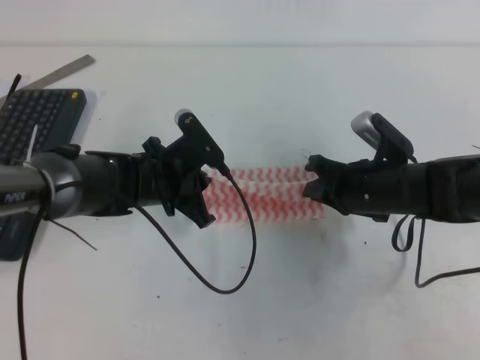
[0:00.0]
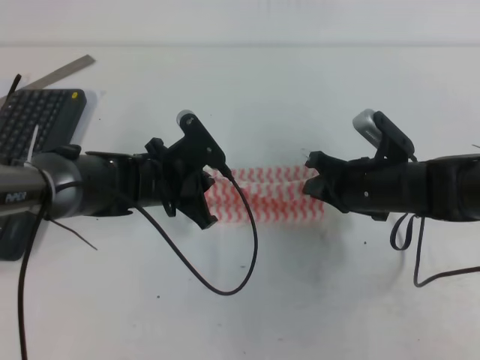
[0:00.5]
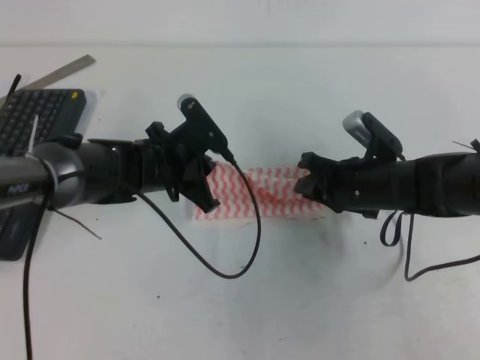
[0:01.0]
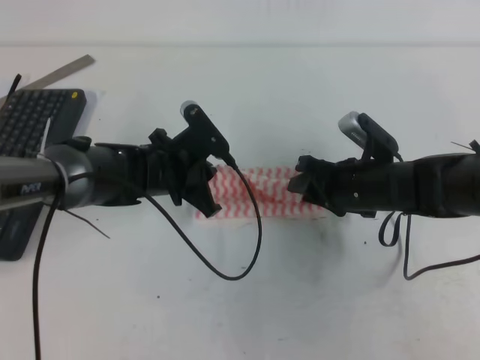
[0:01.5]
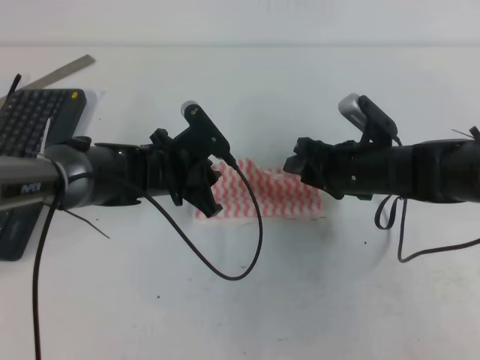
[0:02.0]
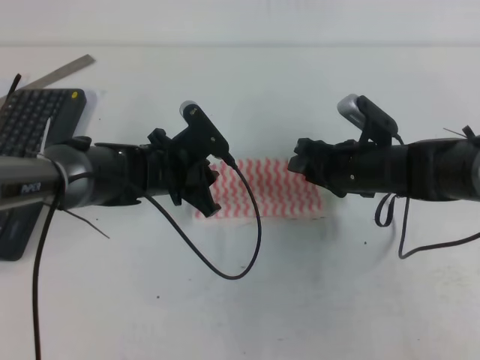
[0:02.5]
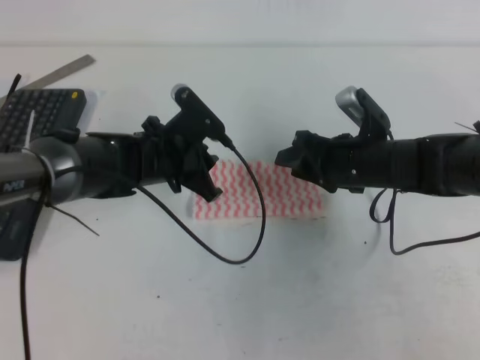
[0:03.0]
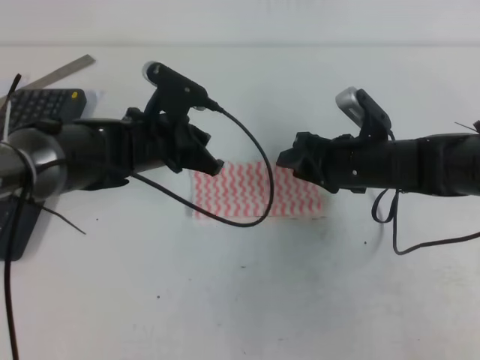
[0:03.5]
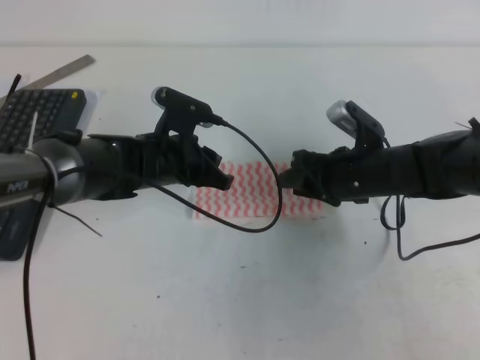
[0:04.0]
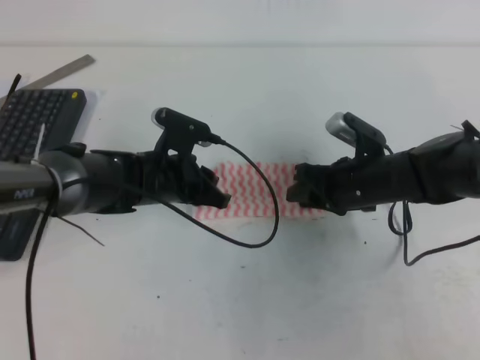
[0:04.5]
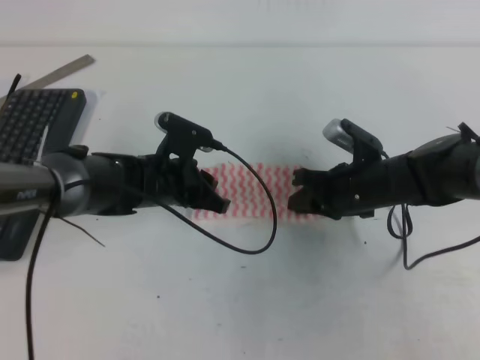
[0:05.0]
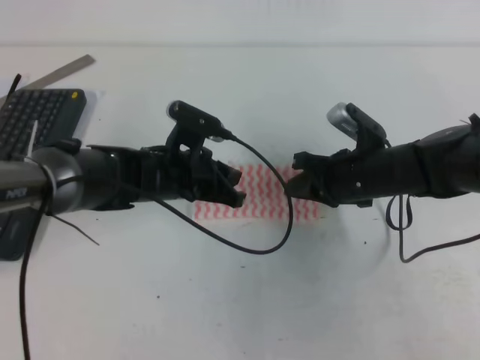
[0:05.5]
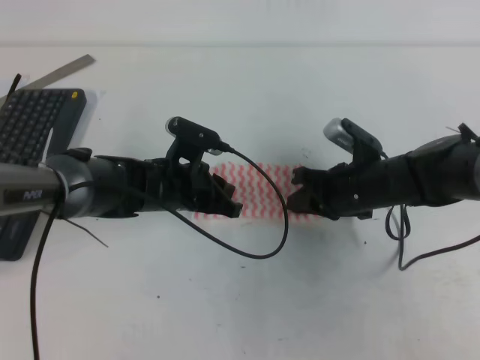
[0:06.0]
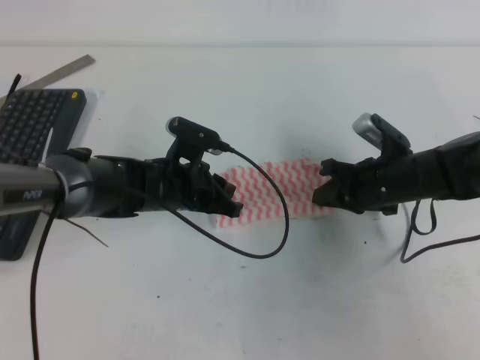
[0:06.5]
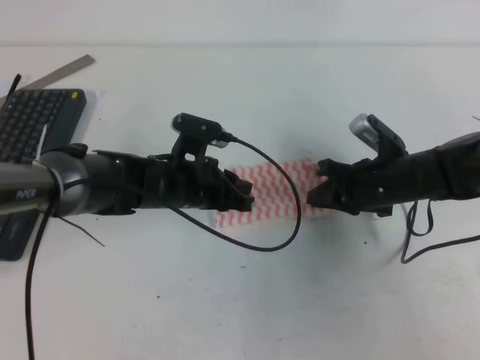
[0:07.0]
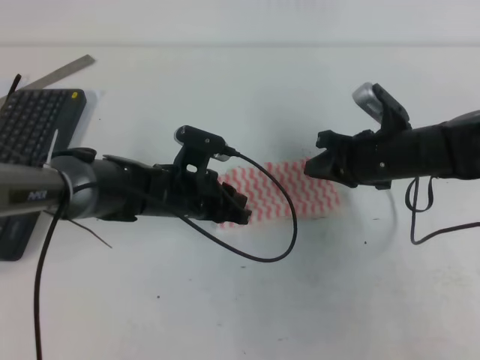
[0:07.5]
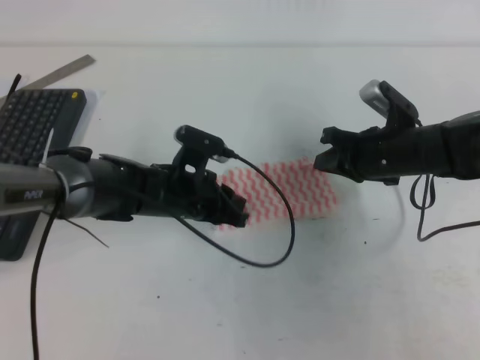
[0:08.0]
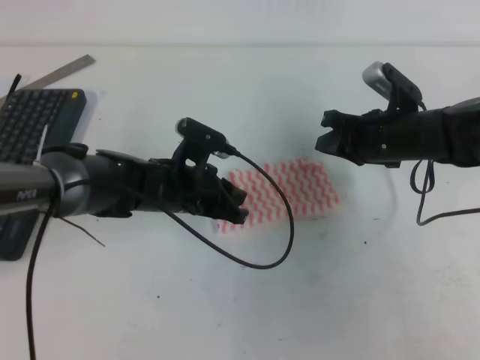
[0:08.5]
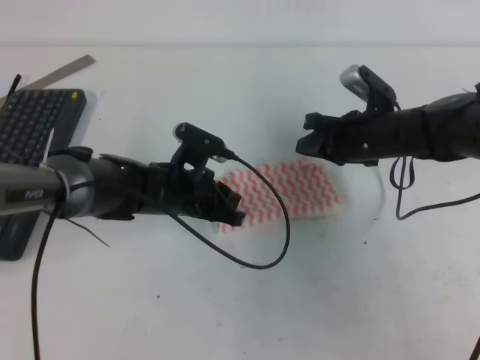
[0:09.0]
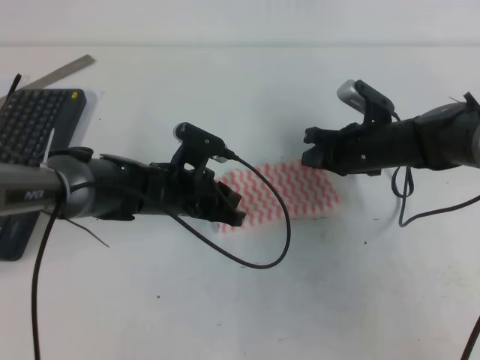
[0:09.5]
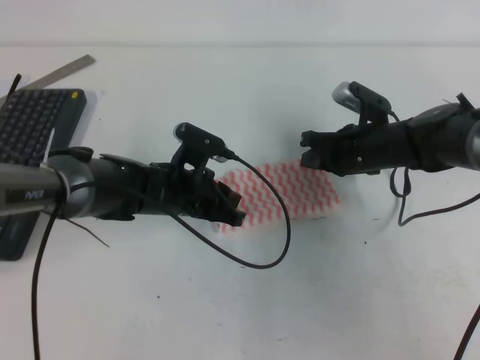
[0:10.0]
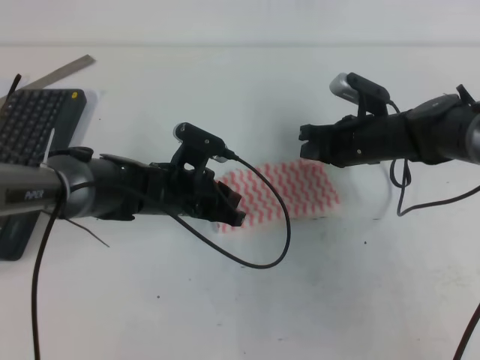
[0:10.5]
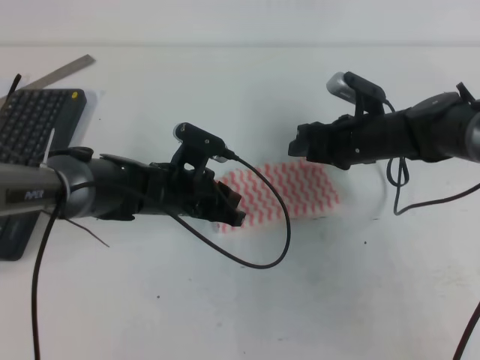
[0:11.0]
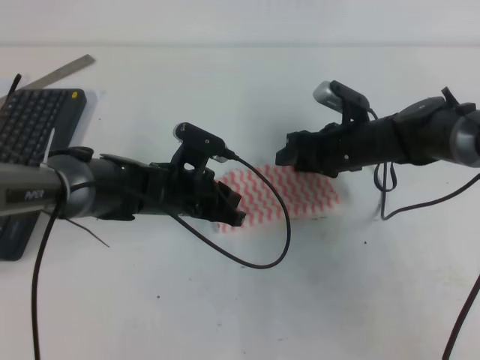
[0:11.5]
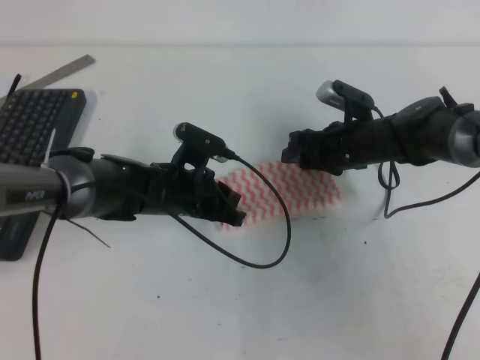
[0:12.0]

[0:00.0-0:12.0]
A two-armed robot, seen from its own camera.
0:00.0 to 0:02.0: The right gripper opens.
0:04.0 to 0:06.0: The right gripper closes up.
0:06.0 to 0:08.0: The right gripper ends up approximately 5 cm from where it was.
0:08.0 to 0:10.0: The grippers stay close to where they were, moving slightly.
0:10.0 to 0:12.0: The right gripper opens.

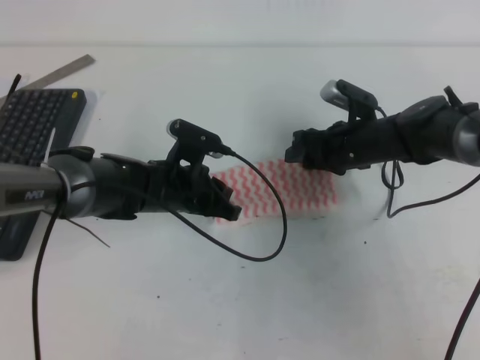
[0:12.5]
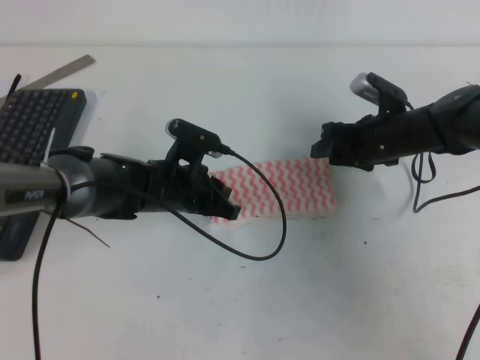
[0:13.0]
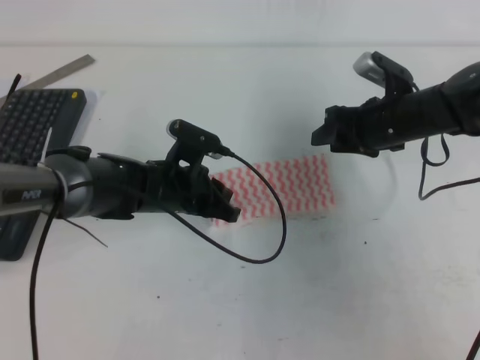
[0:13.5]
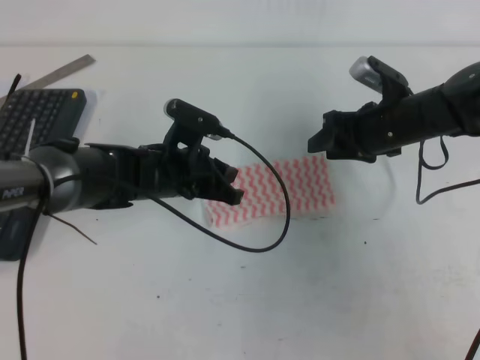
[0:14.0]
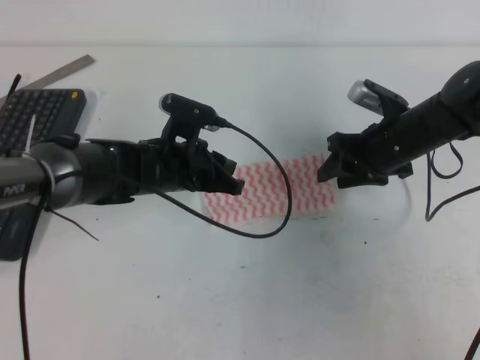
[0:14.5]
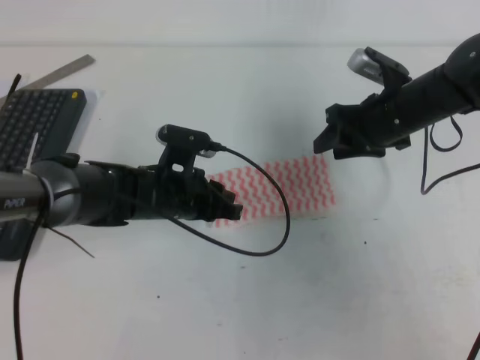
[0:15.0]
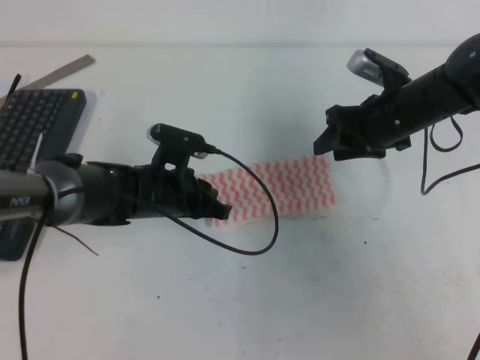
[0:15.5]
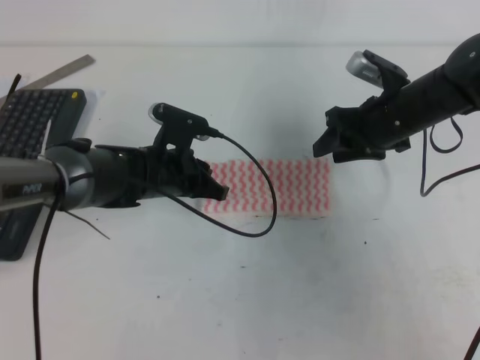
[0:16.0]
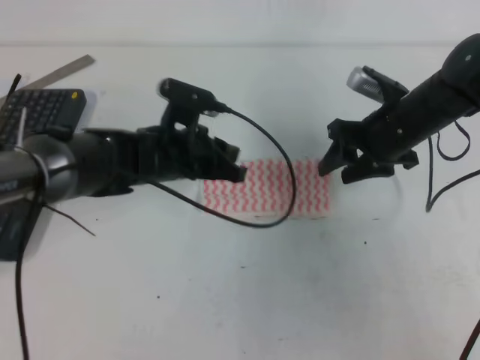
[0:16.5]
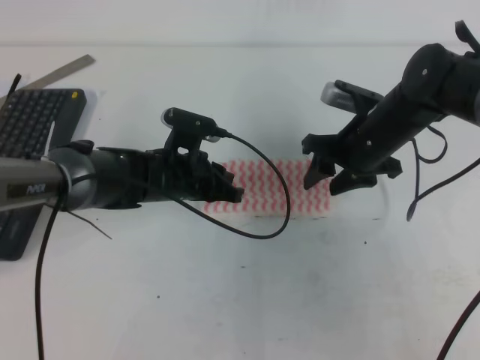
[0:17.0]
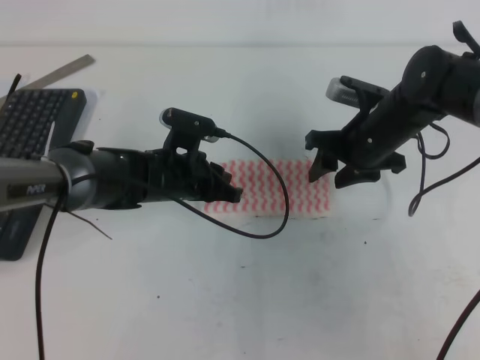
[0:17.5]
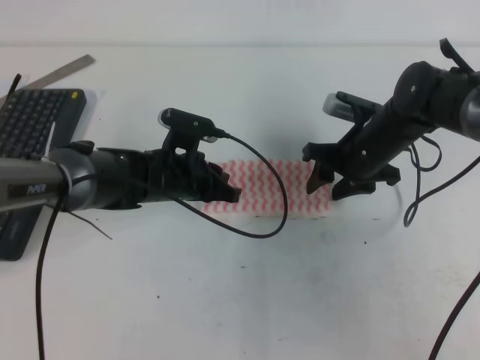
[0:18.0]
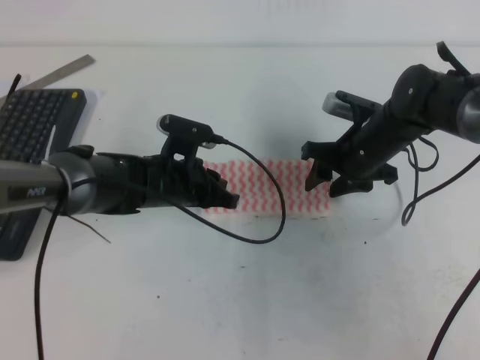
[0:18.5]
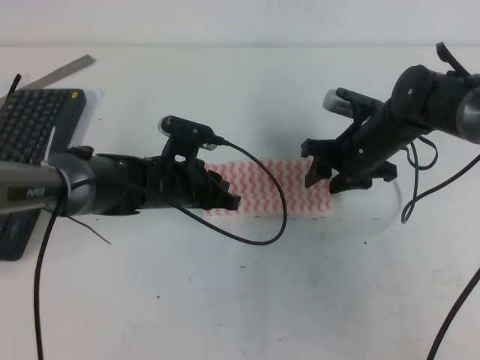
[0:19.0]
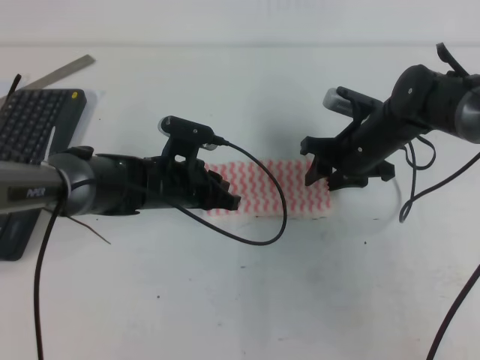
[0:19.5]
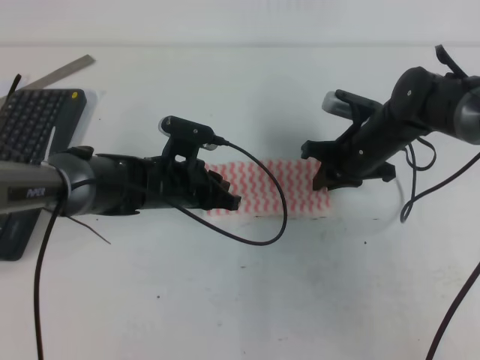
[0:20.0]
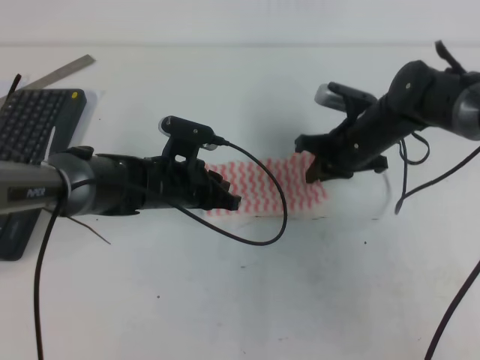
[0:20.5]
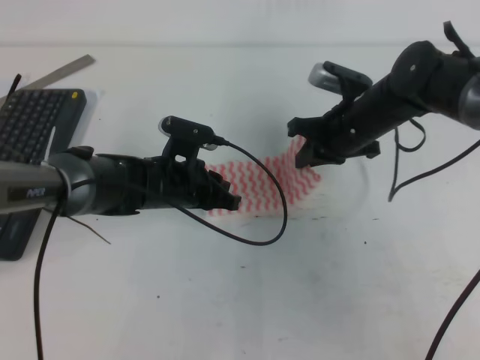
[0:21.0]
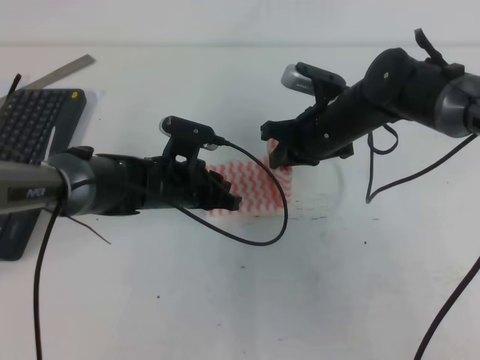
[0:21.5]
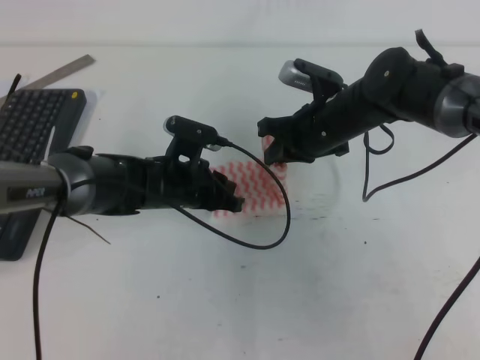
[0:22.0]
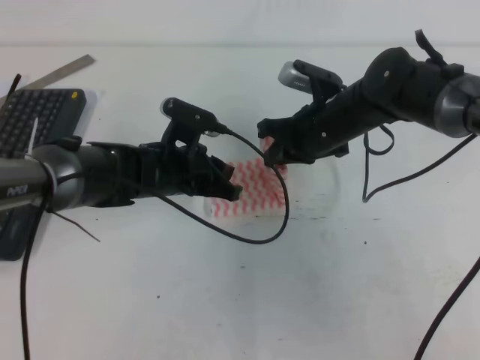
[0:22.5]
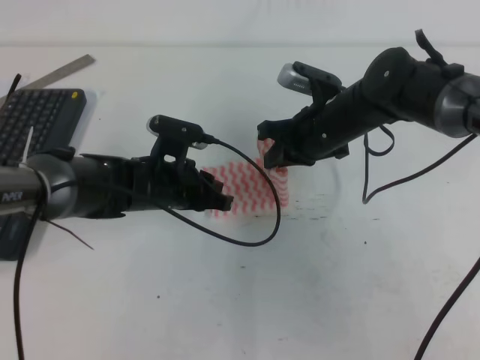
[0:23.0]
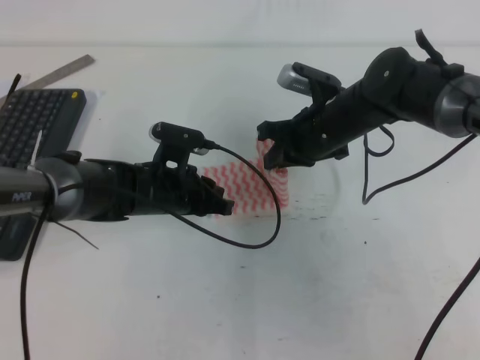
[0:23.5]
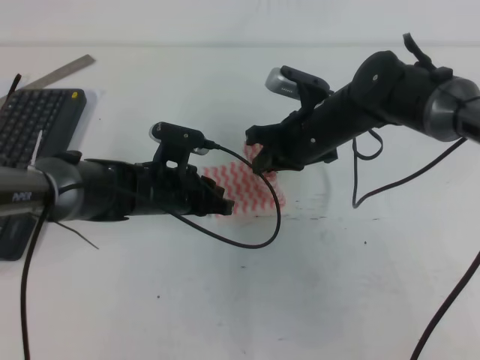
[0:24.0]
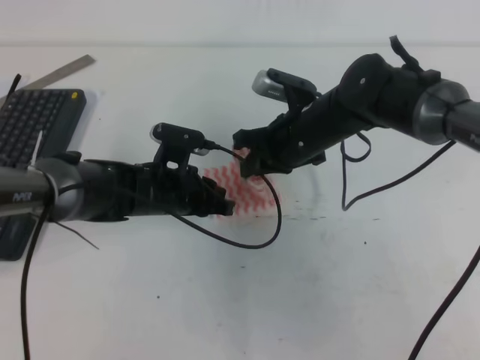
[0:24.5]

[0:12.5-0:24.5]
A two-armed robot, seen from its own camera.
0:12.5 to 0:14.5: The right gripper ends up approximately 5 cm from where it was.
0:14.5 to 0:18.5: There are only small adjustments of the grippers.
0:18.5 to 0:20.5: The right gripper closes its fingers.
0:20.5 to 0:22.5: The right gripper shifts by some 5 cm.
0:22.5 to 0:24.5: The grippers move only a little.

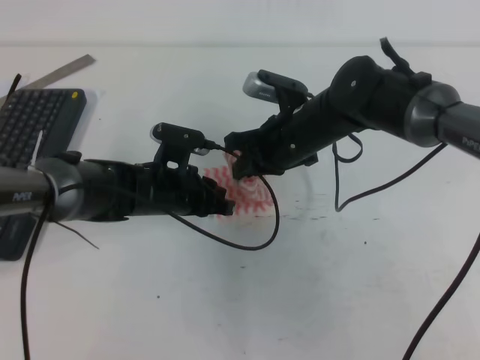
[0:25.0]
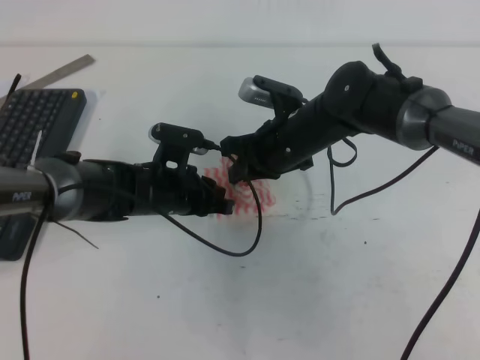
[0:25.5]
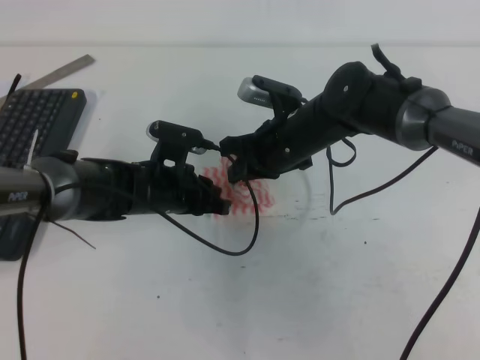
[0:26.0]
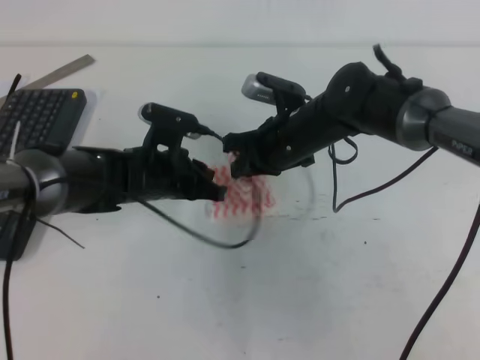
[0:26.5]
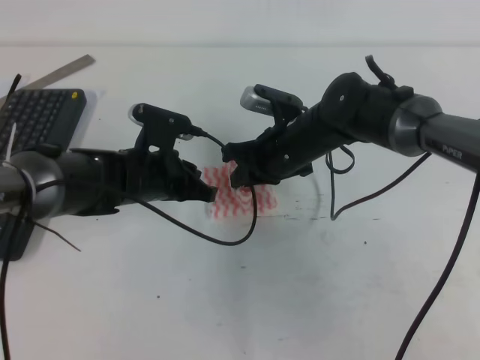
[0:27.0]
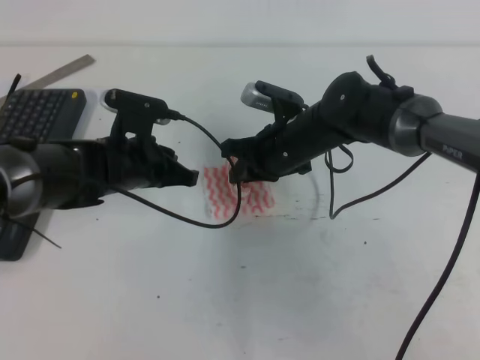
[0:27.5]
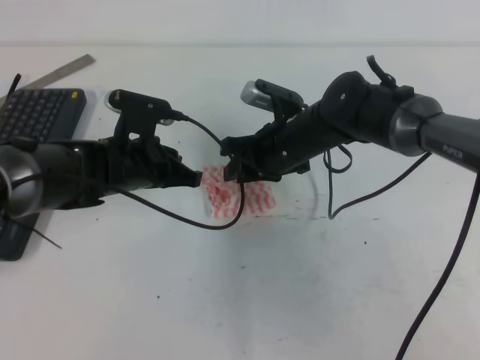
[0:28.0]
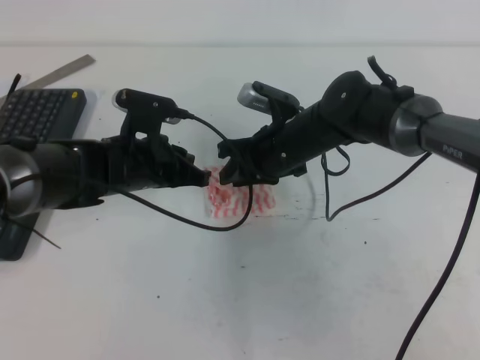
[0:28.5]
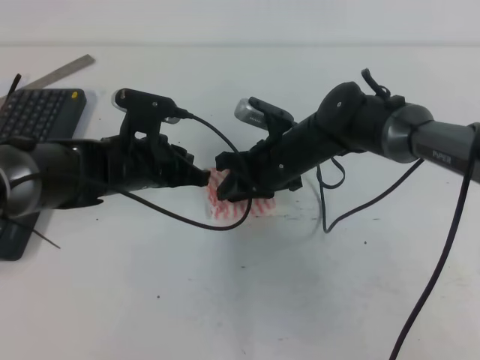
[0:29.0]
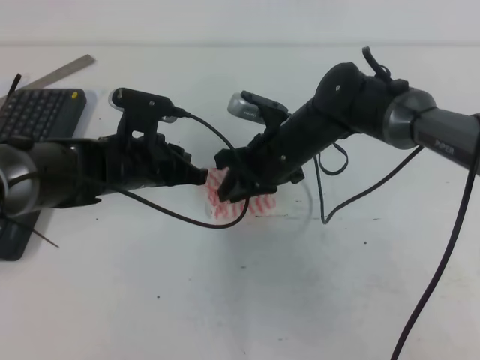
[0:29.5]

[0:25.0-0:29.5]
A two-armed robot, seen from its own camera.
0:25.0 to 0:27.0: The grippers move only a little.
0:27.0 to 0:29.5: The right gripper opens its fingers.
